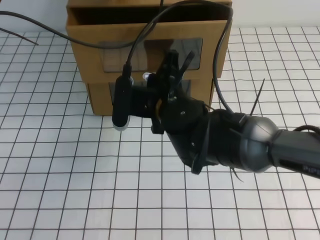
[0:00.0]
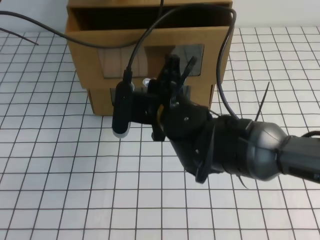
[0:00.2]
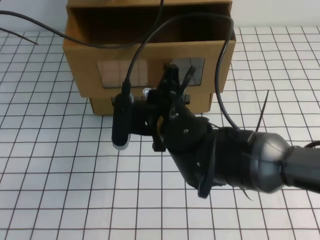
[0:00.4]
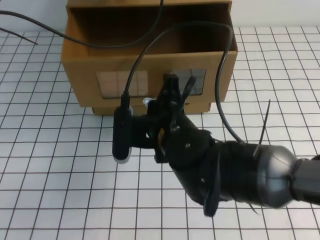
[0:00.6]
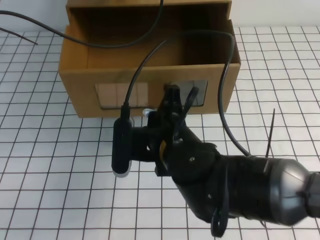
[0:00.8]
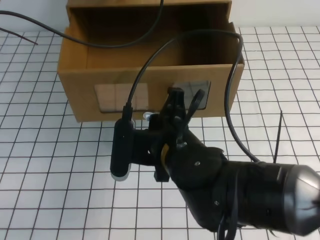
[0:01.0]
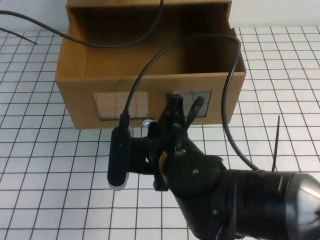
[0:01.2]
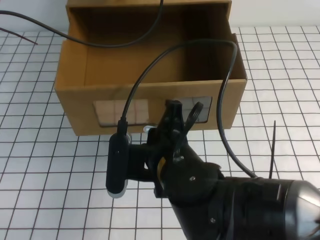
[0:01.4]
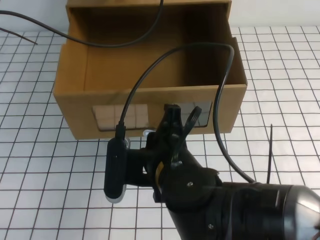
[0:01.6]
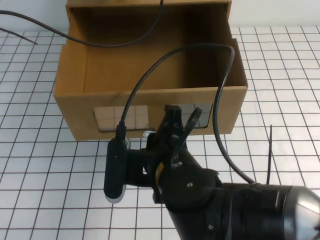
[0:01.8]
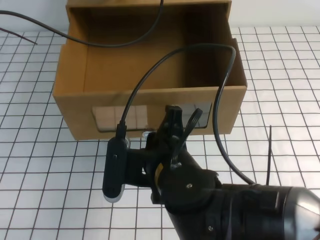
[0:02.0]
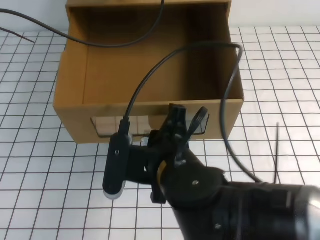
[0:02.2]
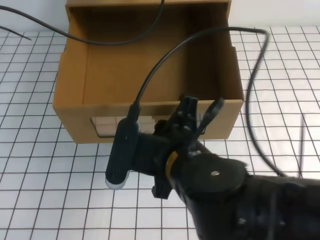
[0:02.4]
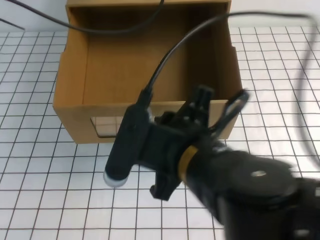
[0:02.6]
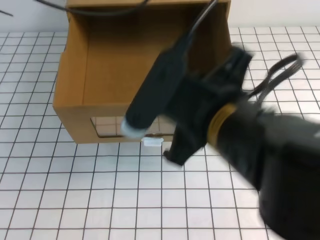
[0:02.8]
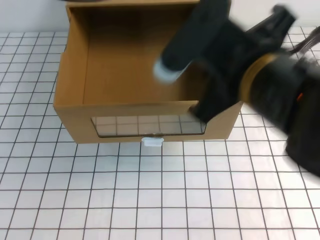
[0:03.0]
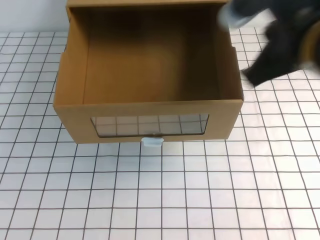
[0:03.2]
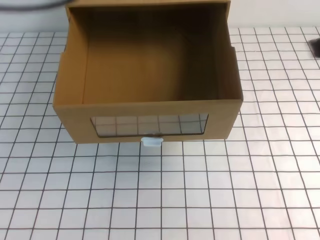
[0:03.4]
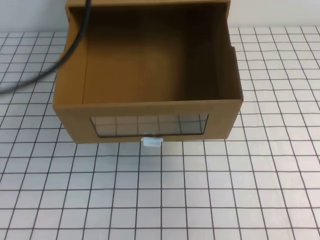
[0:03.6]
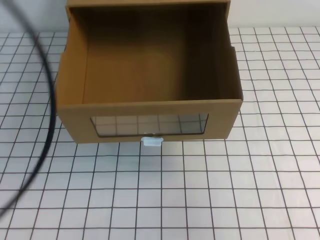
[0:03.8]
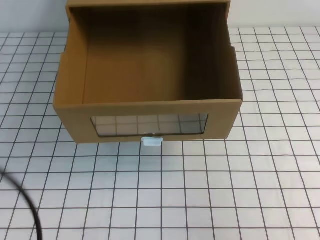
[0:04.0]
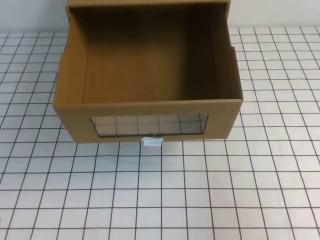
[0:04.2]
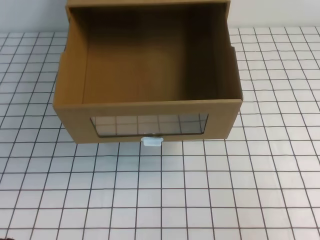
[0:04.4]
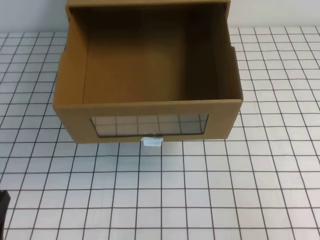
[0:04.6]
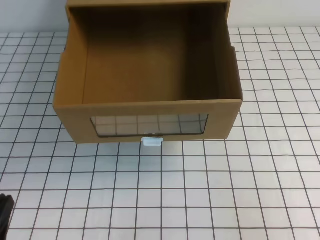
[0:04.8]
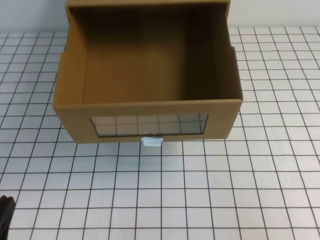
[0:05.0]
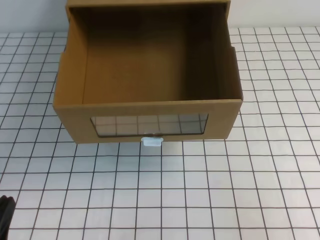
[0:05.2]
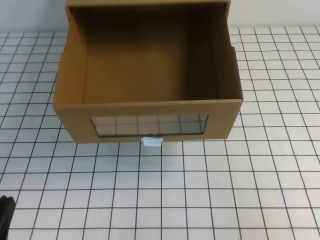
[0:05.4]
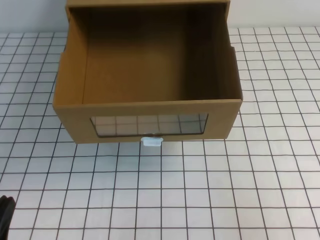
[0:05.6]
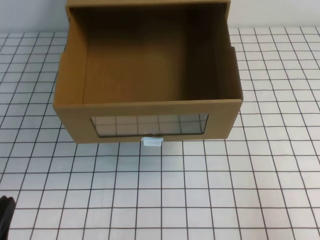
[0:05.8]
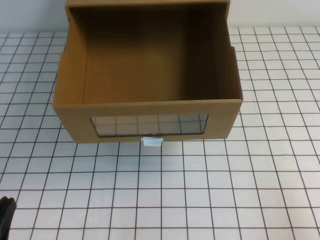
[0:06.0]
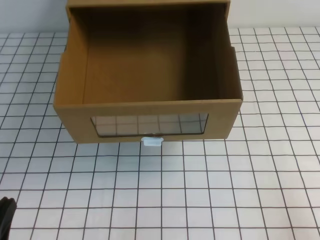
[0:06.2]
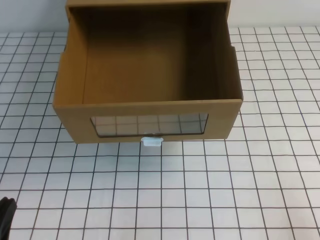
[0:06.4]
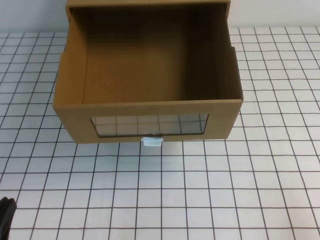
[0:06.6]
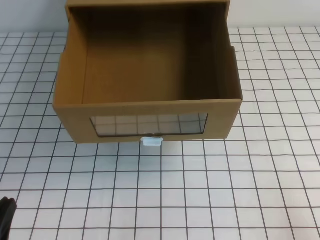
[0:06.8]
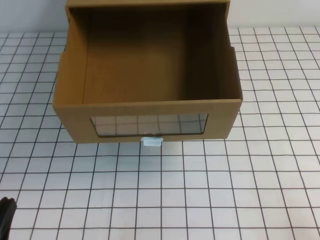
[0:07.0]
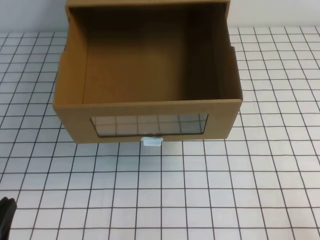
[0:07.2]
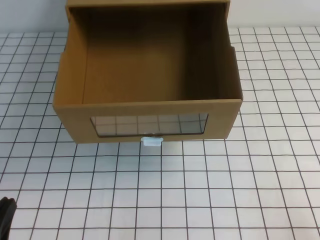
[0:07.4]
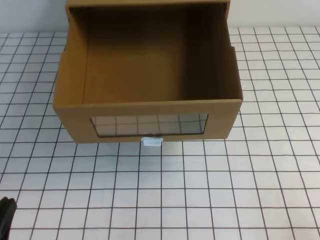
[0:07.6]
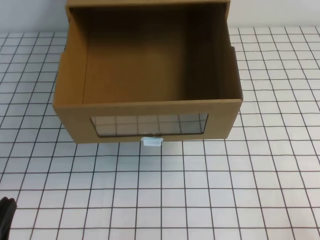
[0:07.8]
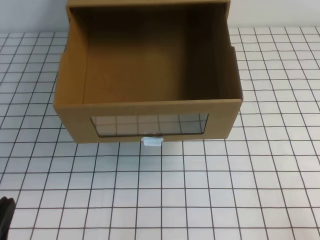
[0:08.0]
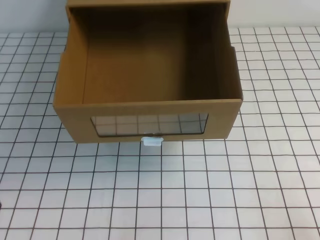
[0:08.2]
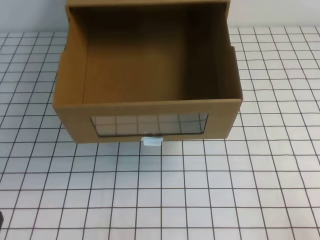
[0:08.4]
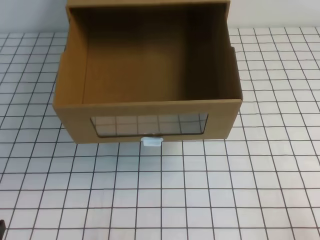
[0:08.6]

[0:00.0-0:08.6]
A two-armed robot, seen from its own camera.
Task of the whole recording: open the shoebox on the white tablecloth.
Step, 0:00.0 to 0:08.6: Open the shoe box.
0:00.0 to 0:01.4: The right gripper moves backward, some 10 cm.
0:01.4 to 0:02.8: The left gripper heads upward and backward, covering some 10 cm, while the right gripper goes some 10 cm upward.
0:02.8 to 0:04.4: The right gripper moves to the right, roughly 25 cm; the left gripper is displaced backward and downward by roughly 40 cm.
0:04.4 to 0:05.8: The left gripper moves downward, roughly 5 cm.

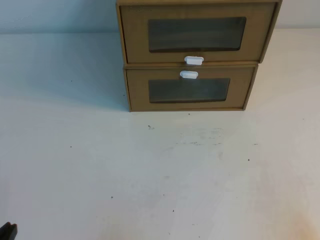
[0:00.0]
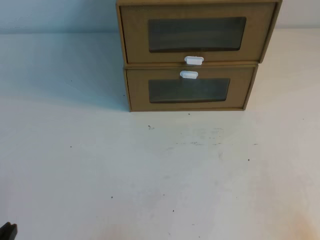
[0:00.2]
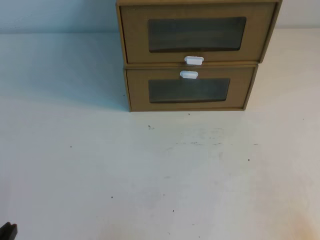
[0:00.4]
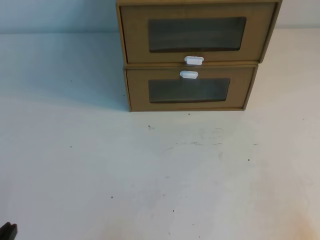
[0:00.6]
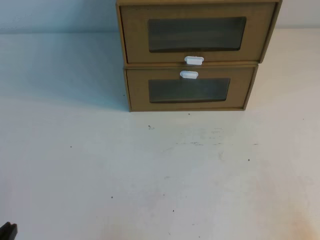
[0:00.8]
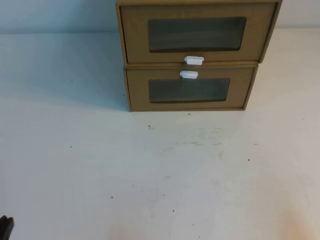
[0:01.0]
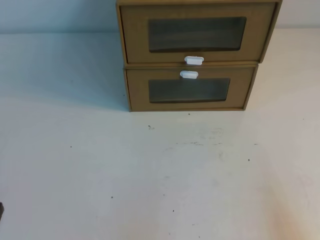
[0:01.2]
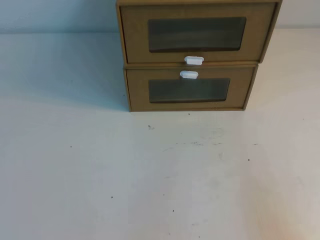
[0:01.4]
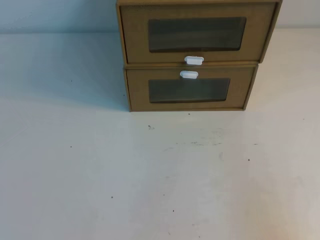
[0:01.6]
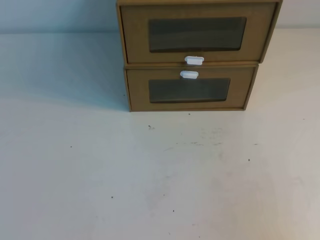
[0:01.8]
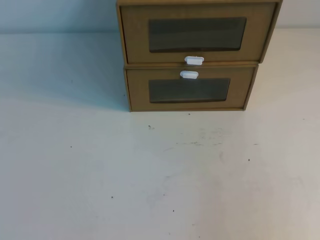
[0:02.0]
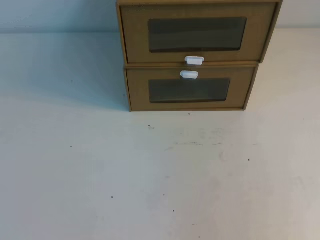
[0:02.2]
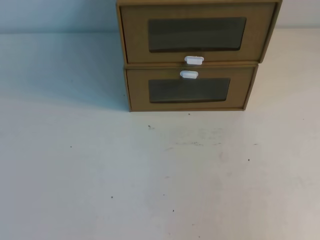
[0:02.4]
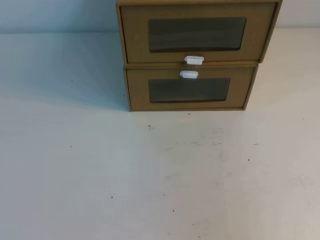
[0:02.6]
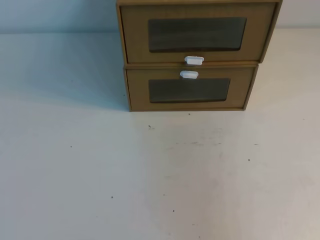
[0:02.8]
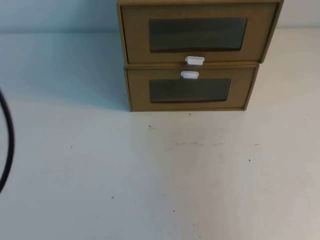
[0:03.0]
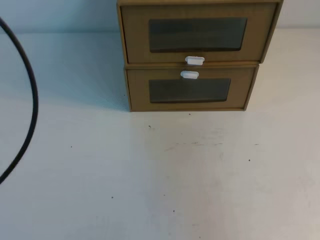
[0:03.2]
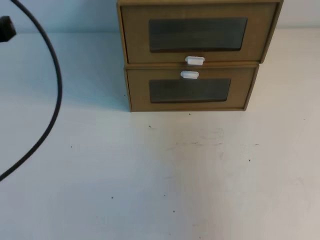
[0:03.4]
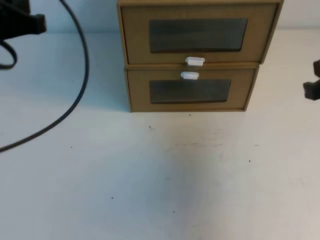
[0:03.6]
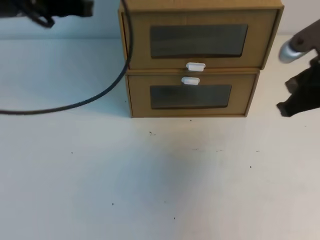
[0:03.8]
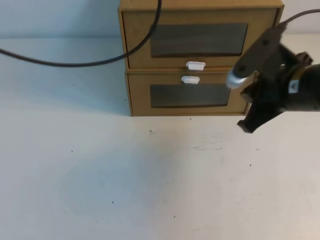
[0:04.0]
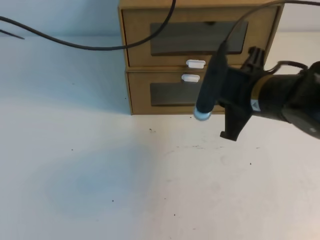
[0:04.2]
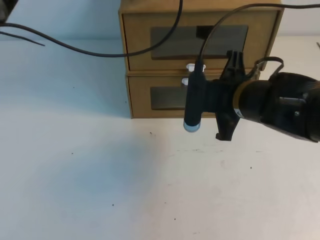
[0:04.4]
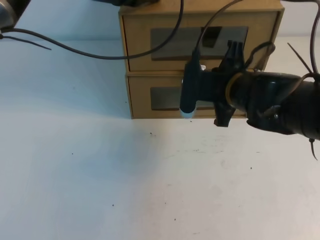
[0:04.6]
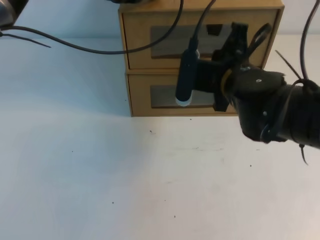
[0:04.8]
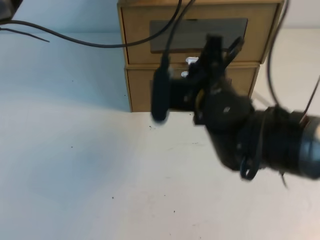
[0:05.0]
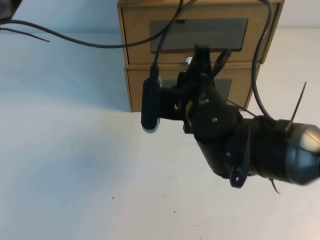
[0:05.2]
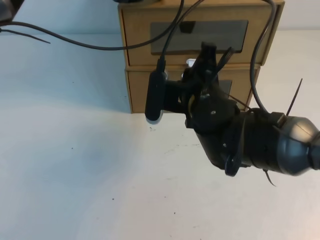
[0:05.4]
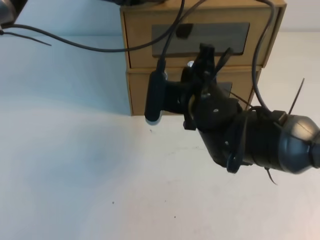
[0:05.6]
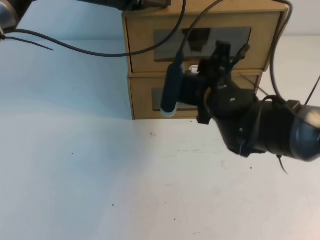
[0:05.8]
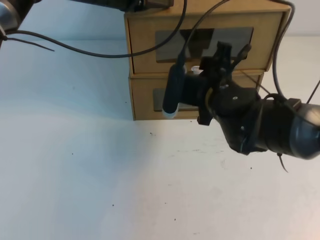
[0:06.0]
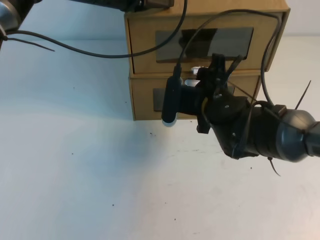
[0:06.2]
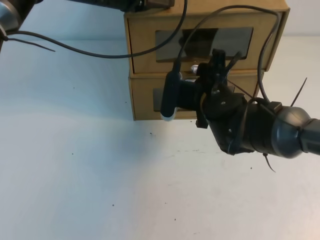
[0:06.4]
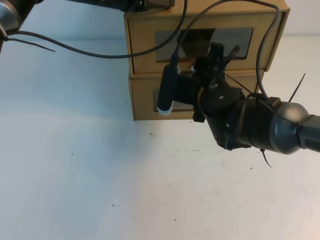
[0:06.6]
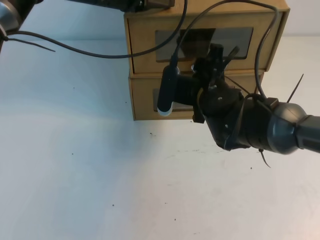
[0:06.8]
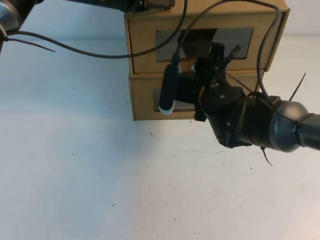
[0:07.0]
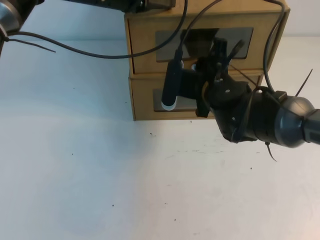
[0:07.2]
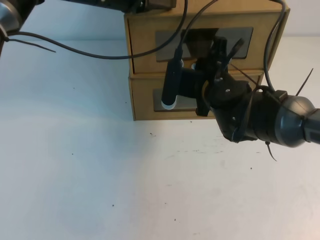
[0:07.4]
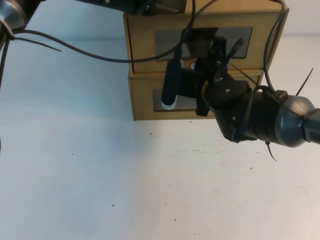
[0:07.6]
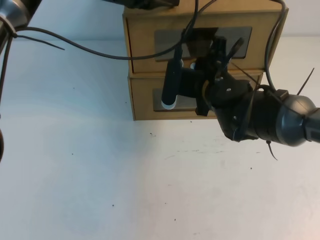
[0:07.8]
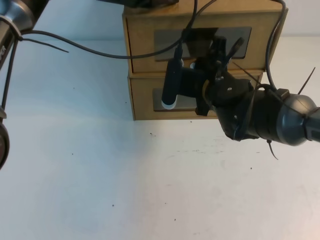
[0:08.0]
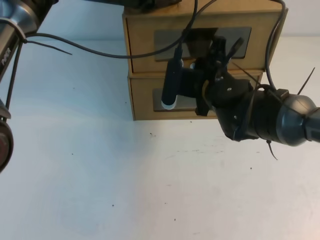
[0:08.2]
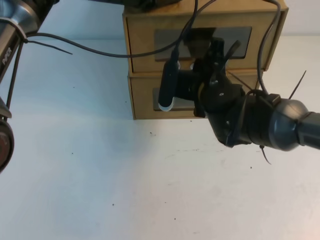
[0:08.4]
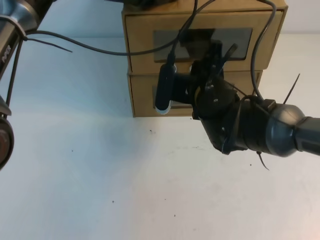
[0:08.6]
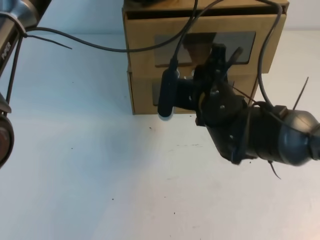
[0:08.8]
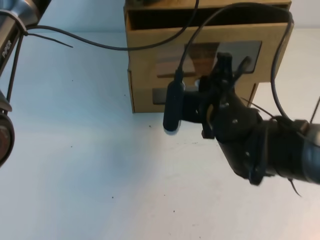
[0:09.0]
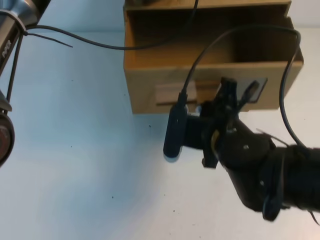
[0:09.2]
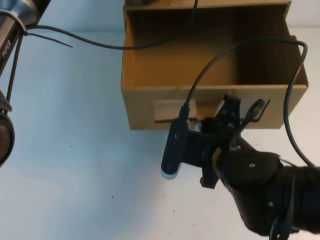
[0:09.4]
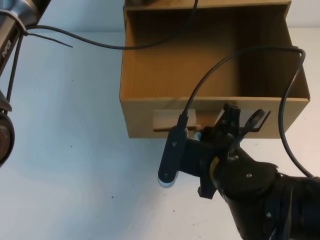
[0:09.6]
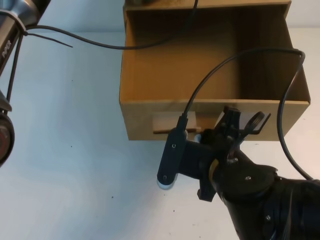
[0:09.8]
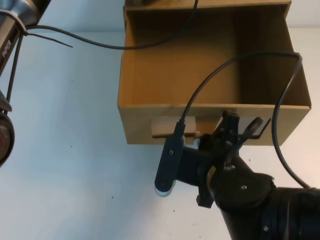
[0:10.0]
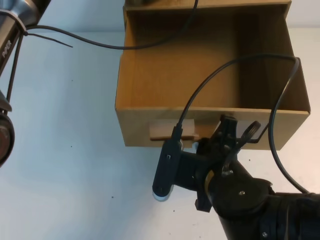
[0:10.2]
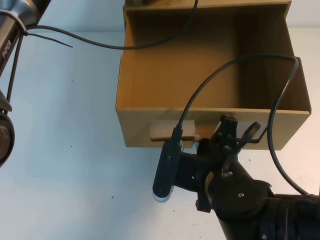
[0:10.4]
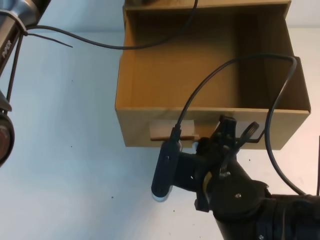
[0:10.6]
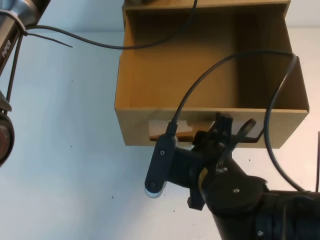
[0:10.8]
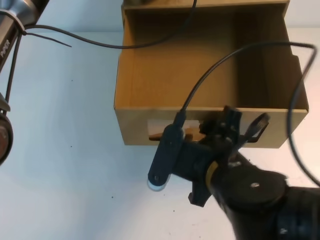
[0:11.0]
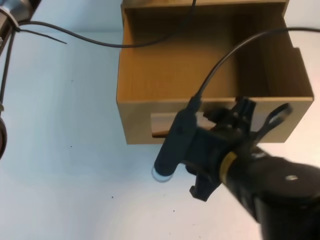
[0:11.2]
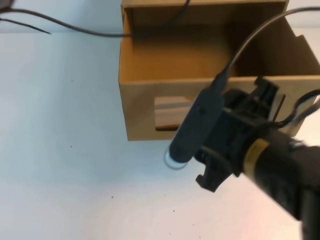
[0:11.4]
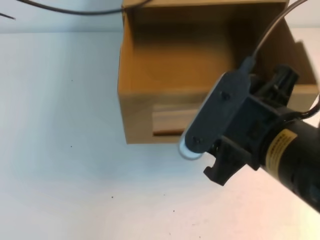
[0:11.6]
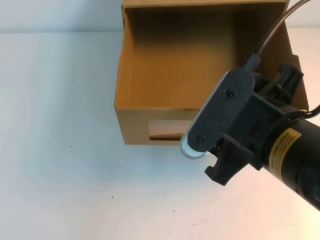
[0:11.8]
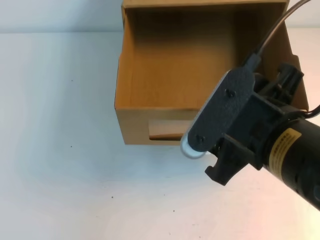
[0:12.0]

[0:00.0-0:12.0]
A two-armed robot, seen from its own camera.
Task of the whole recording: open the shoebox on the table.
0:01.6 to 0:03.0: The right gripper shifts approximately 20 cm upward and forward. Meanwhile the left gripper is displaced upward by approximately 20 cm.
0:03.0 to 0:04.4: The right gripper is displaced to the left, forward and downward by about 30 cm. Meanwhile the left gripper is displaced forward and to the right by approximately 35 cm.
0:04.4 to 0:06.0: The right gripper moves approximately 5 cm, and opens.
0:06.0 to 0:07.6: The right gripper closes its fingers.
0:07.6 to 0:09.0: The right gripper is displaced backward by approximately 5 cm.
0:09.0 to 0:10.4: The right gripper moves backward, some 10 cm.
0:10.4 to 0:12.0: The right gripper is displaced upward by about 10 cm, and opens up. Meanwhile the left gripper travels upward, backward and to the left by approximately 20 cm.

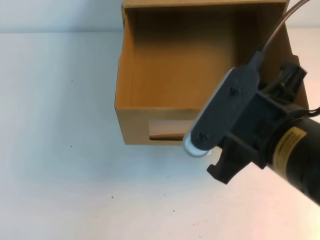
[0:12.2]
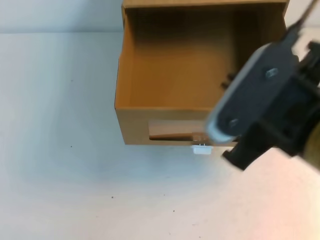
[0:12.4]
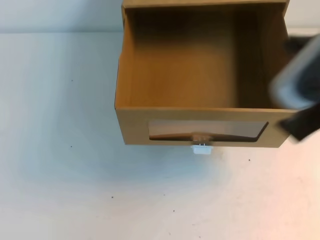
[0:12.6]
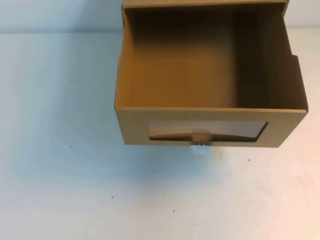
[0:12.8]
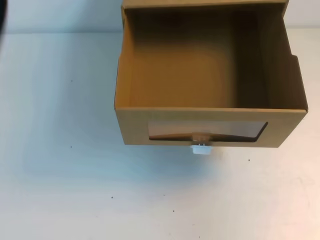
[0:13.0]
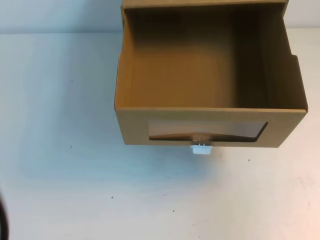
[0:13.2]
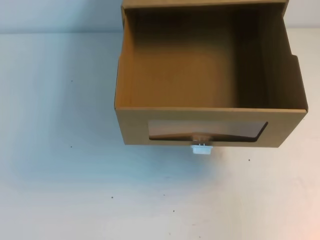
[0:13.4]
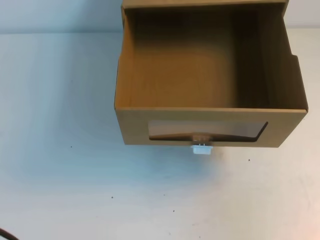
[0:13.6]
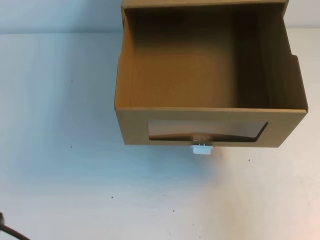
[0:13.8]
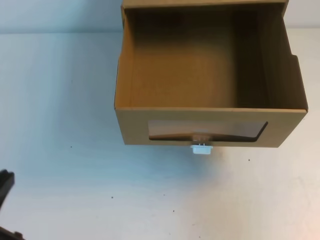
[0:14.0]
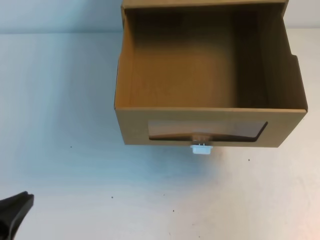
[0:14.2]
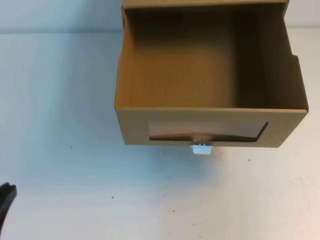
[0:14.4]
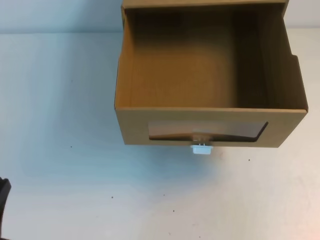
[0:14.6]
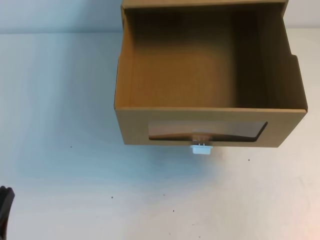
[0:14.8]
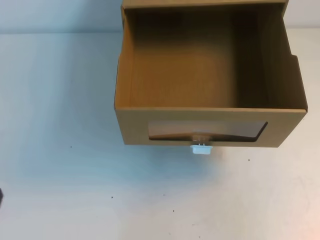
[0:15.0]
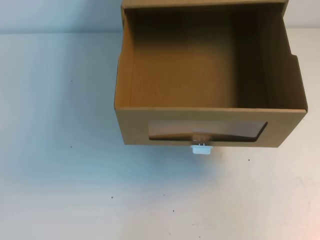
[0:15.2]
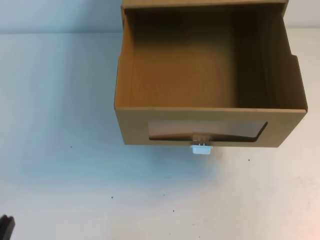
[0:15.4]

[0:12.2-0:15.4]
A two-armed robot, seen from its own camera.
Task of the whole recording: open the shoebox on the table.
0:12.2 to 0:13.8: The right gripper moves to the right and backward, roughly 25 cm, and closes; the left gripper heads downward and backward, covering approximately 30 cm.
